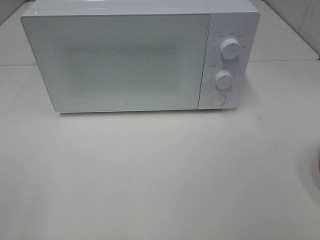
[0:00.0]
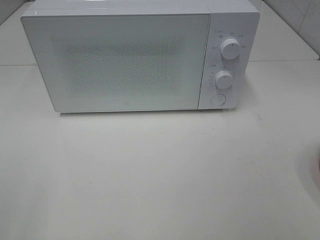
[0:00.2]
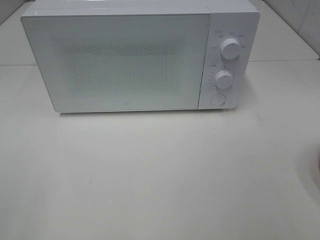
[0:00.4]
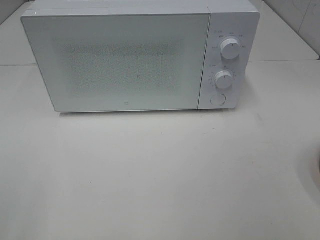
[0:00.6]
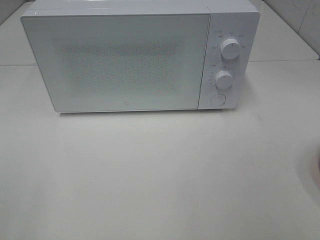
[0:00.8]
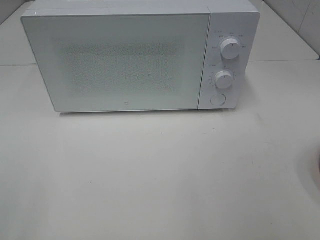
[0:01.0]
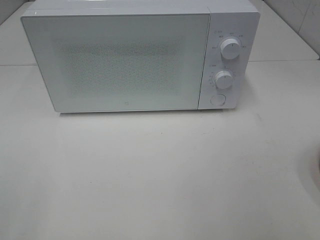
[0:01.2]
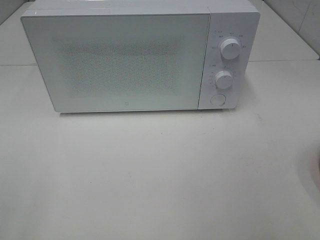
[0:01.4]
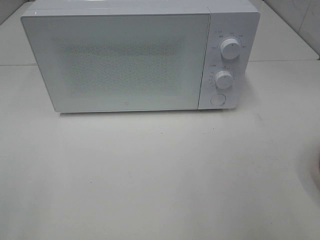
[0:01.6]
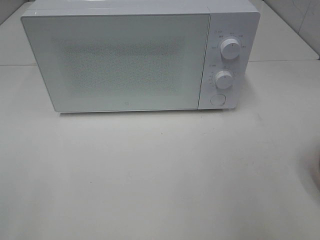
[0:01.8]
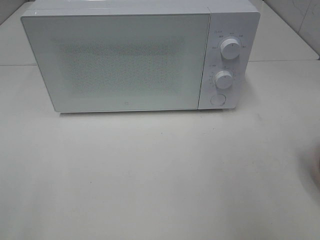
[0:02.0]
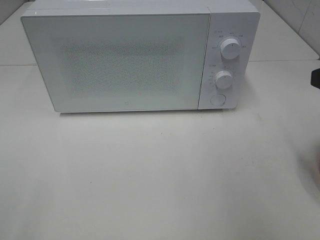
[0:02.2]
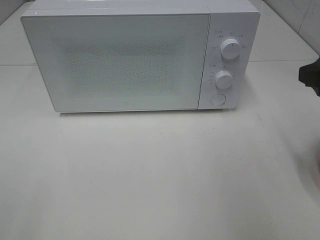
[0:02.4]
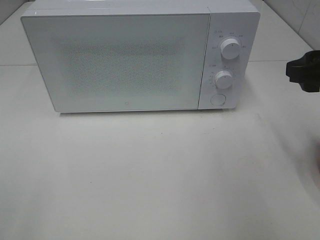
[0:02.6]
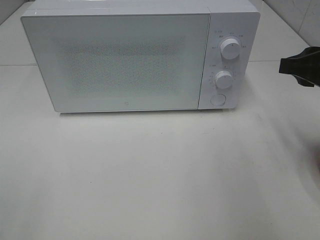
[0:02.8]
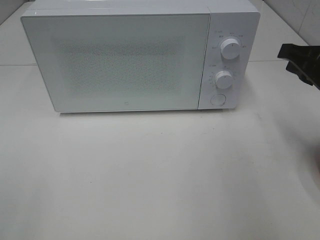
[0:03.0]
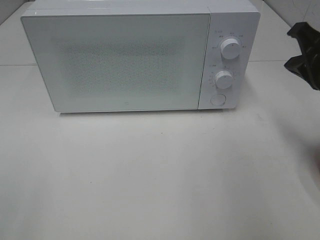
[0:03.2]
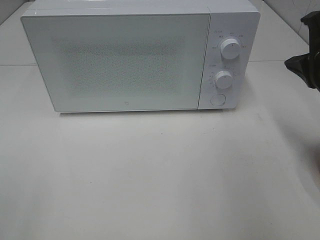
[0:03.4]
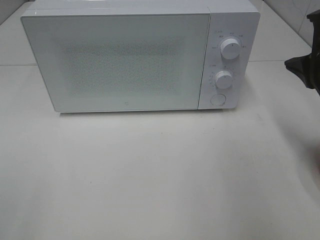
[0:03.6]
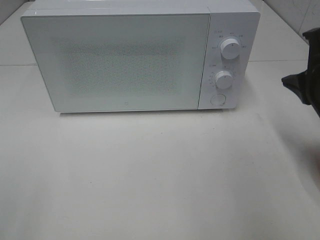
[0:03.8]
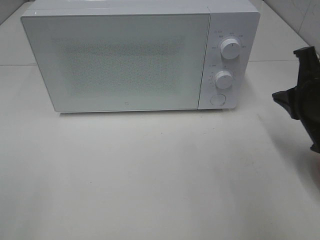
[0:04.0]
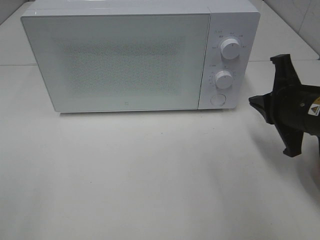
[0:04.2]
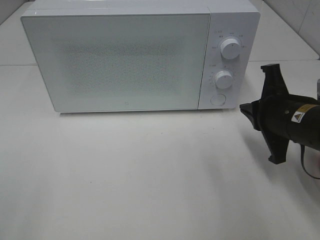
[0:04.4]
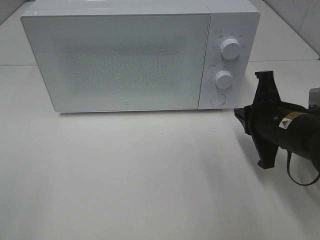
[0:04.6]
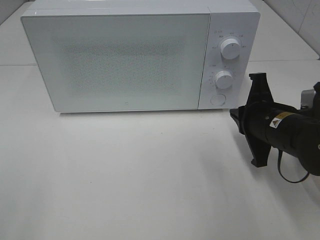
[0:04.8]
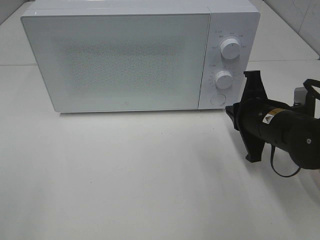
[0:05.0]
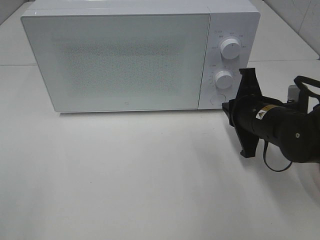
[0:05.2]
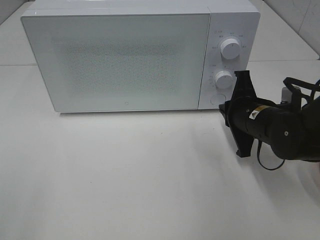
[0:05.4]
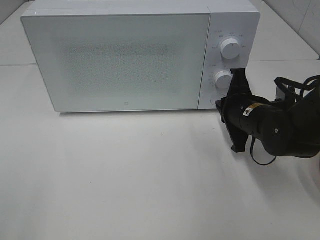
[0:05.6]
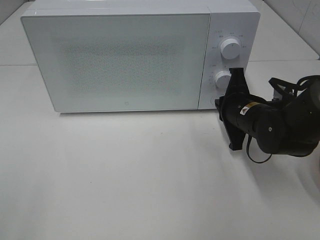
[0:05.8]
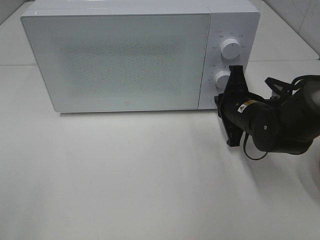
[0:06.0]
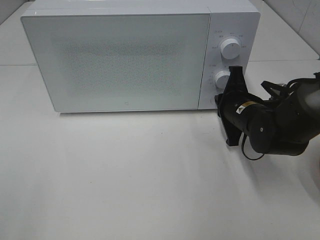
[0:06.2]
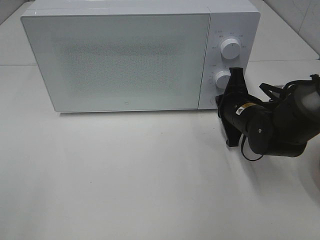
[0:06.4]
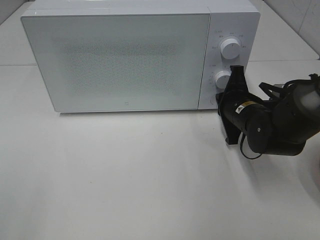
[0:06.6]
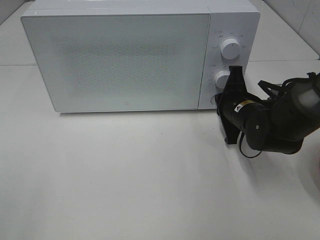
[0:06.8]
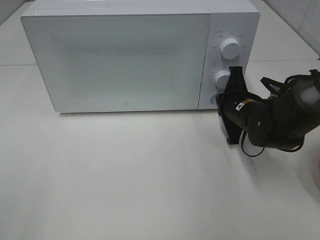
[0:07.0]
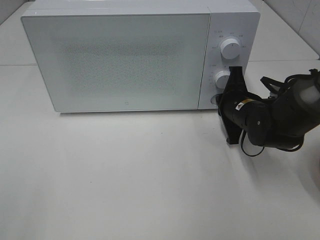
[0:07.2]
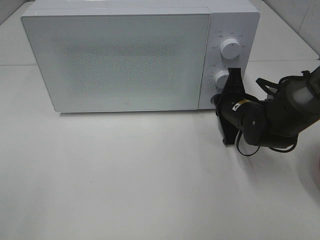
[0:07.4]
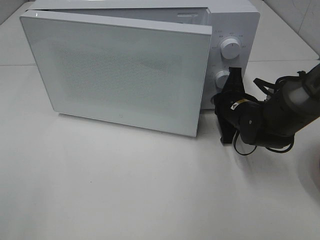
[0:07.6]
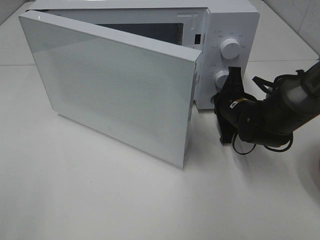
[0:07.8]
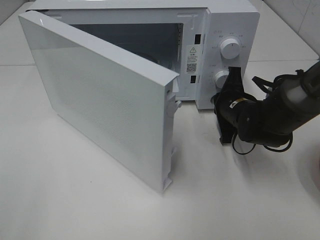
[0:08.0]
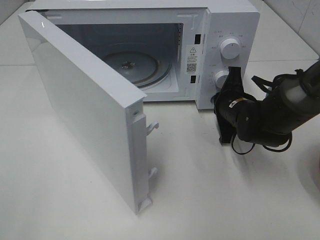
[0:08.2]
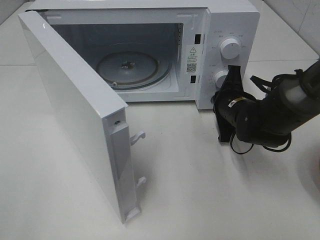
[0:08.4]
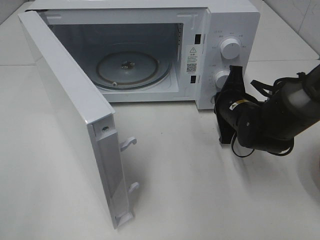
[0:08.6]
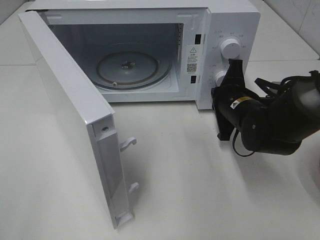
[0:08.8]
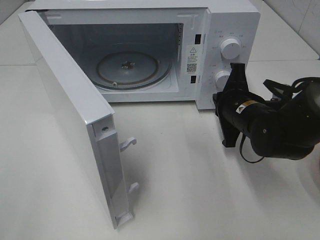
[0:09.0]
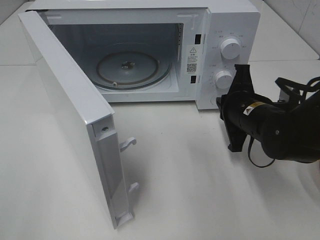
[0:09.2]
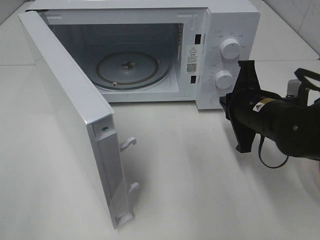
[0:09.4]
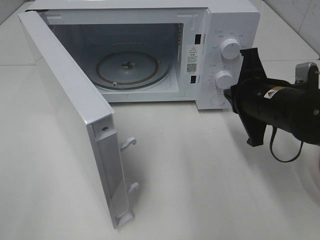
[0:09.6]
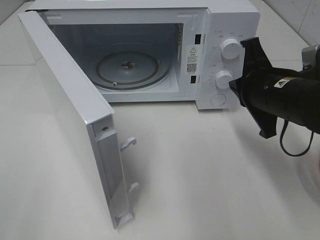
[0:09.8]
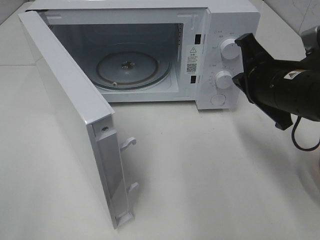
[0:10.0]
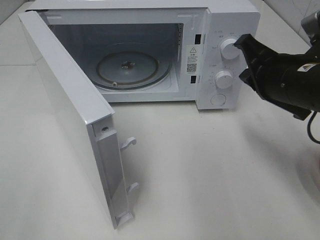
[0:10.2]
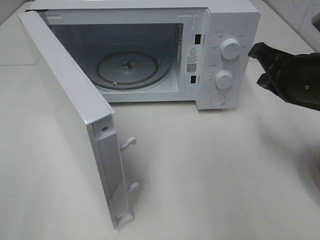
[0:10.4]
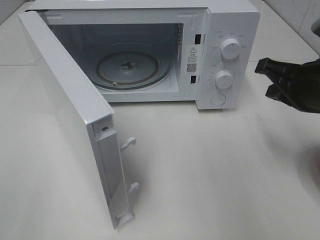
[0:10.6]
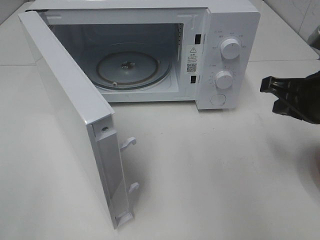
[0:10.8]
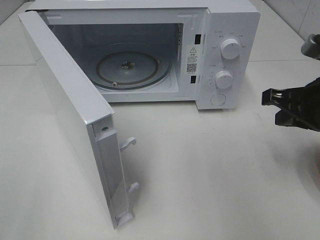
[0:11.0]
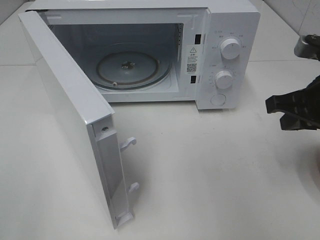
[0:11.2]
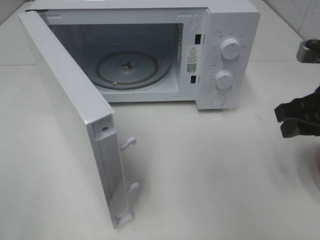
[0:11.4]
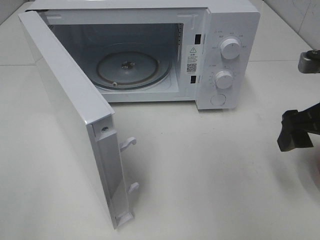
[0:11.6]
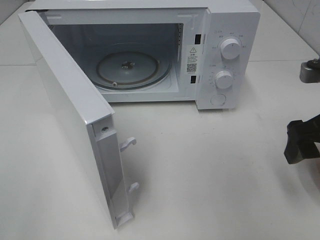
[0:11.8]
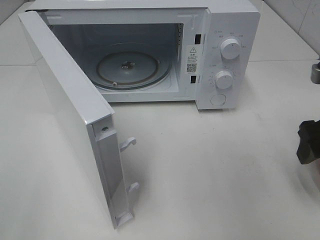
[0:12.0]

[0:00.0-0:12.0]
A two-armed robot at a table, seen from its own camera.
Task of the whole recording: Heat the burger.
Step, 0:00.0 to 0:08.6: Right hand: press the switch.
0:01.6 to 0:03.0: The right gripper is displaced forward by approximately 15 cm, and closes.
0:03.0 to 0:04.4: The right gripper travels downward by roughly 10 cm.
0:04.4 to 0:06.0: The right gripper travels forward and downward by approximately 10 cm.
0:06.0 to 0:07.6: The grippers move only a little.
0:07.6 to 0:09.0: The right gripper ends up approximately 5 cm from where it was.
0:09.0 to 0:10.4: The right gripper shifts some 15 cm upward, to the right and backward.
0:10.4 to 0:12.0: The right gripper travels to the right by roughly 5 cm, and opens its fingers.

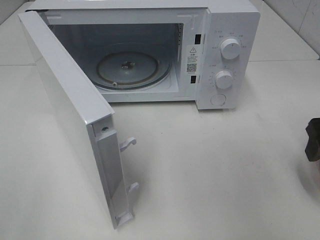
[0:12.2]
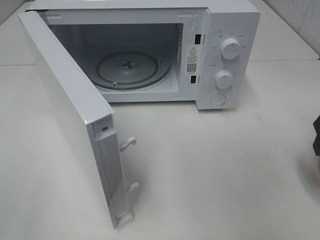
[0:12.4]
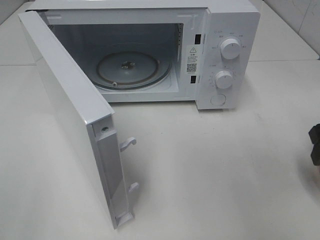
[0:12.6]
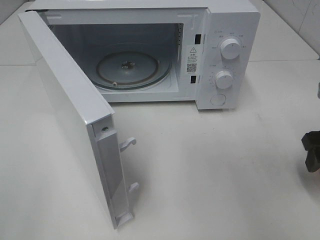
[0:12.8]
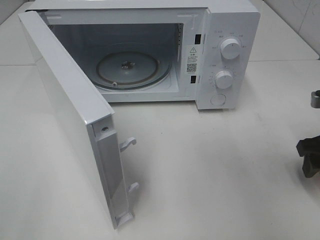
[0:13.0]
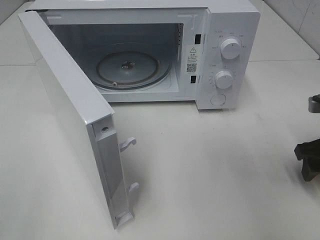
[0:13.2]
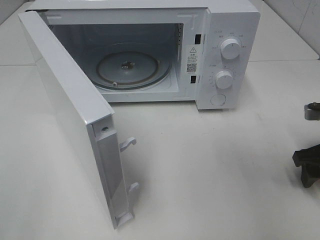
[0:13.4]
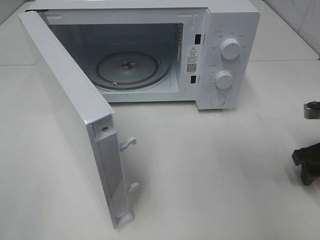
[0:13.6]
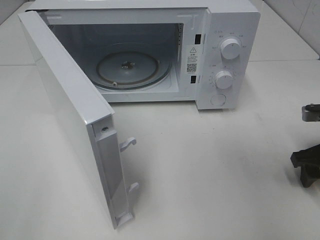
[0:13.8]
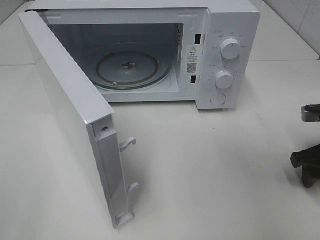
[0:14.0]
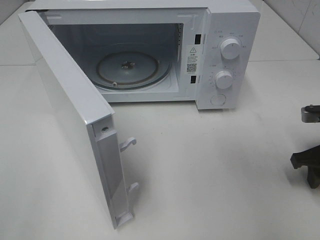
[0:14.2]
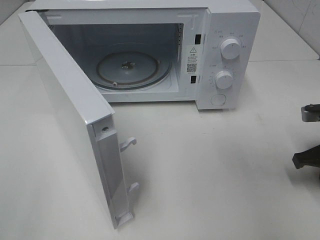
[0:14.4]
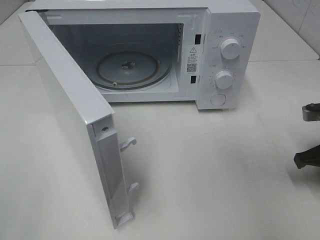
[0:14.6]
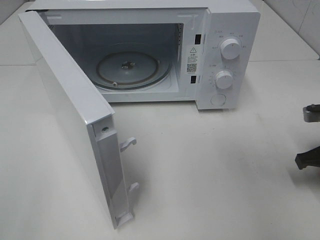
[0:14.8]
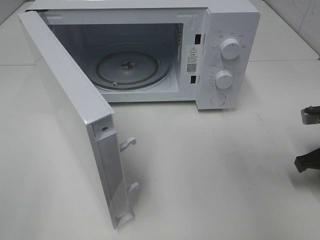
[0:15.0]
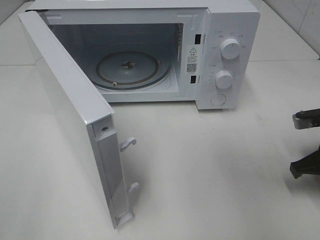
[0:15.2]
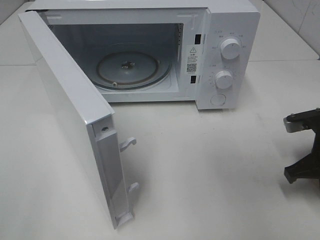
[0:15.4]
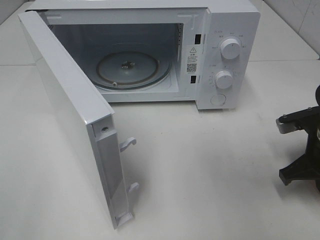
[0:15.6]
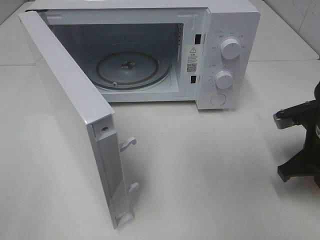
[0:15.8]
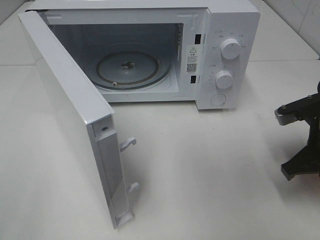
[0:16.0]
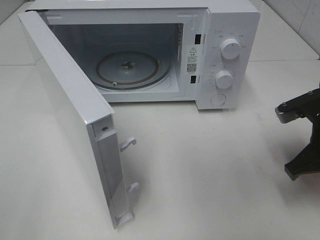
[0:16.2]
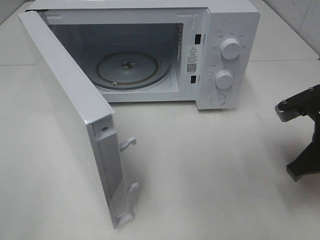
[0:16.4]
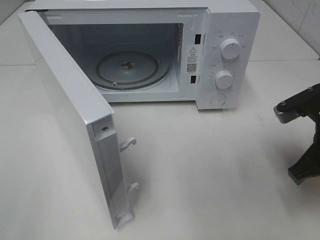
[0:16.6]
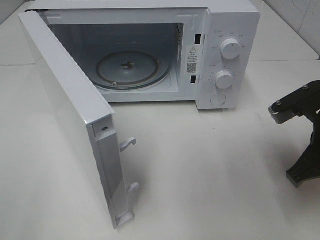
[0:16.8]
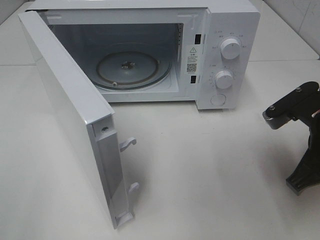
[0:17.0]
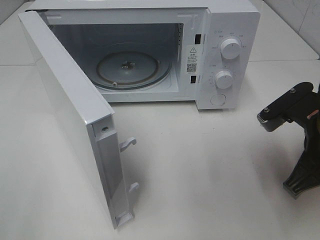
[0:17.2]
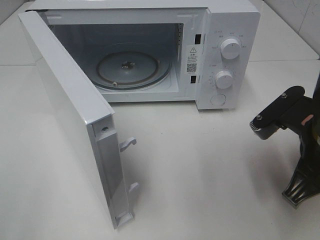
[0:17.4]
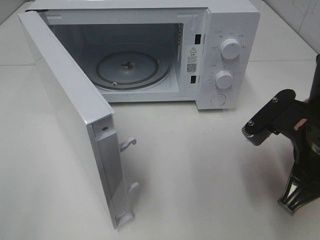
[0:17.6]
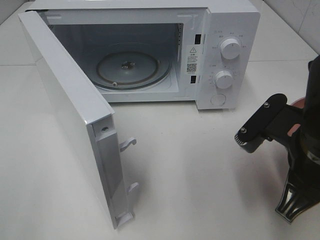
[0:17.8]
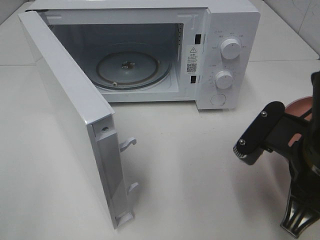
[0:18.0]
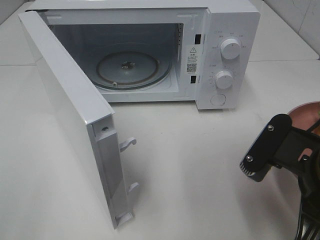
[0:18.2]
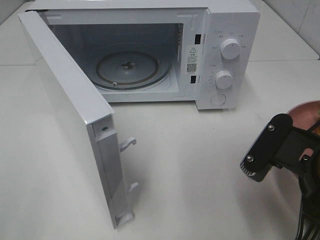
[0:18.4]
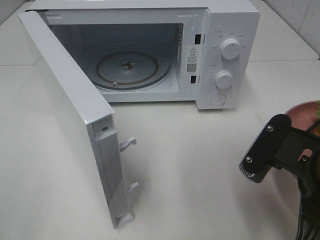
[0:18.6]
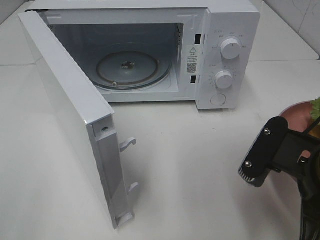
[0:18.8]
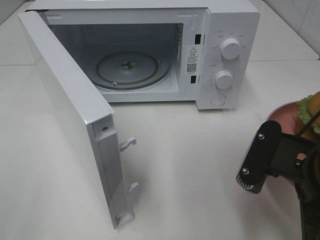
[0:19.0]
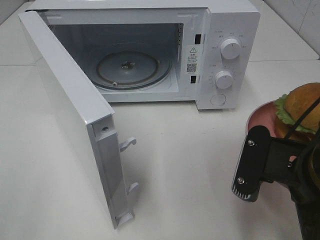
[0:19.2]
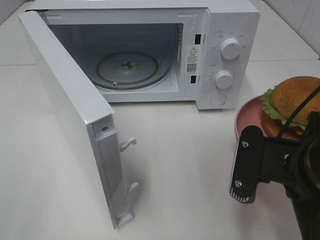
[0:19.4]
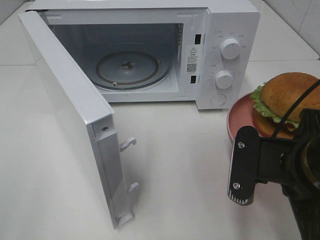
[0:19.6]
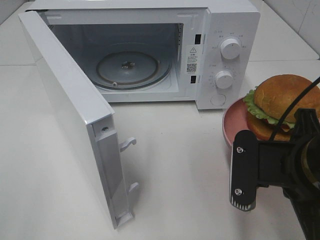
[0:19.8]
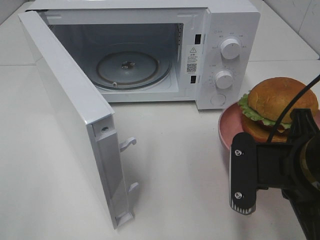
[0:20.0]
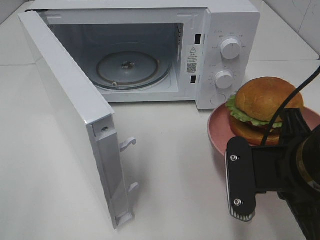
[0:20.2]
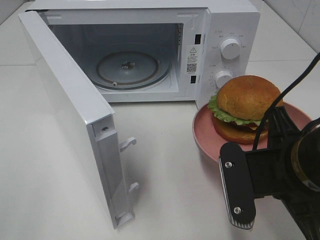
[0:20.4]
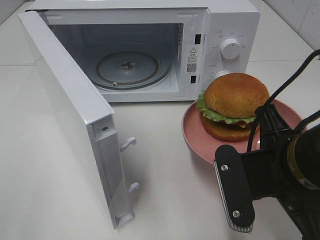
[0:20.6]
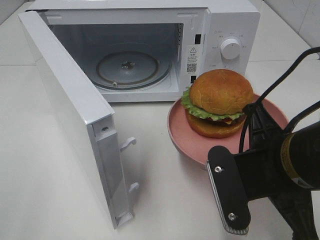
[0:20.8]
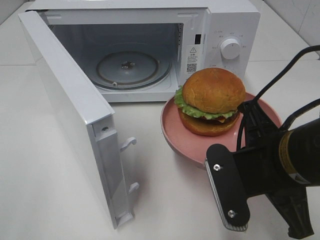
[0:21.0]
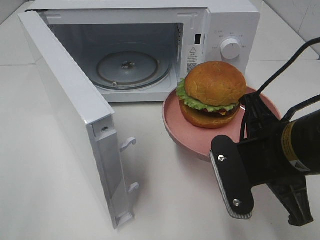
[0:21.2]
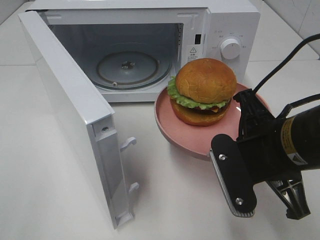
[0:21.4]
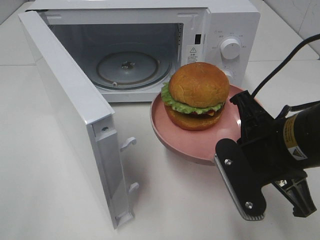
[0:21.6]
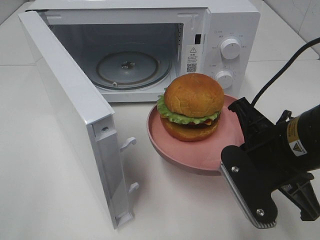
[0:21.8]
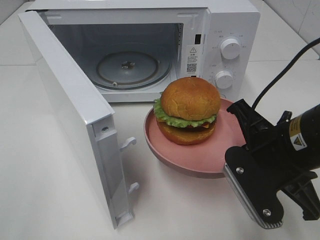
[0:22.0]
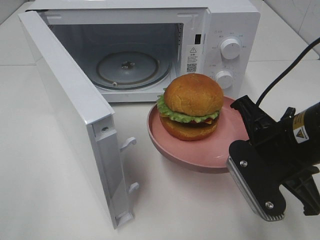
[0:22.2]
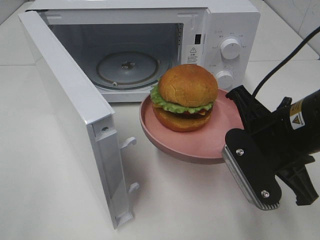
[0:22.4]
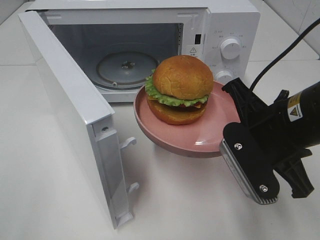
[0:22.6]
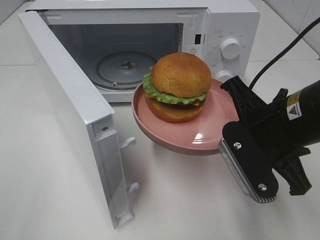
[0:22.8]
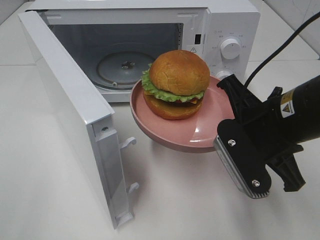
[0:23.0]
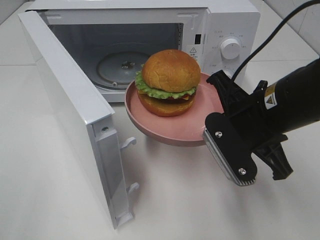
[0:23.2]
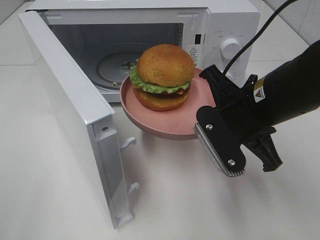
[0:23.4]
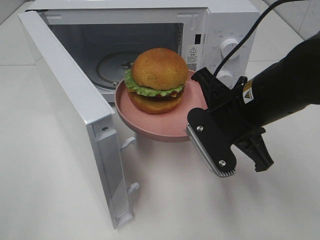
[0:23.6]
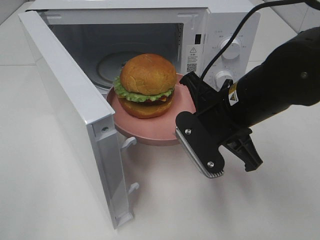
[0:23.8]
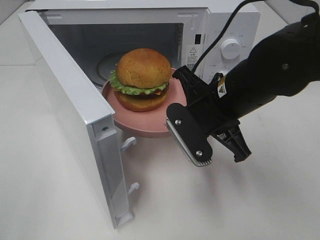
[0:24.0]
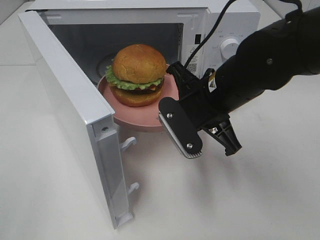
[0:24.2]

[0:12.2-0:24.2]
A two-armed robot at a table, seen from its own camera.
Task of the whole recording: Heat the burger.
Step, 0:12.2 to 0:14.8: Right hand: grab the plate with the hamburger.
0:12.2 to 0:13.8: The right gripper heads downward, covering approximately 10 cm.
0:13.8 to 0:15.2: The right gripper closes.
0:15.2 to 0:16.6: The right gripper is displaced upward and to the left by about 10 cm.
0:16.6 to 0:18.2: The right gripper is displaced backward and to the left by some 10 cm.
0:21.2 to 0:22.6: The grippers move only a little.
0:22.6 to 0:24.2: The right gripper goes about 10 cm forward and to the left.
